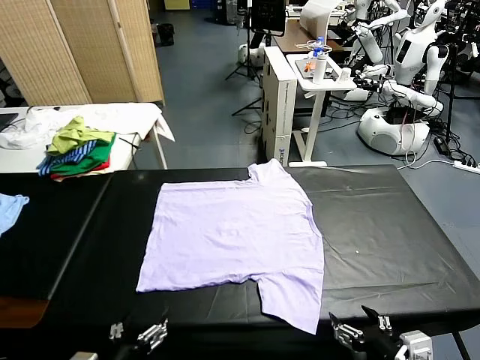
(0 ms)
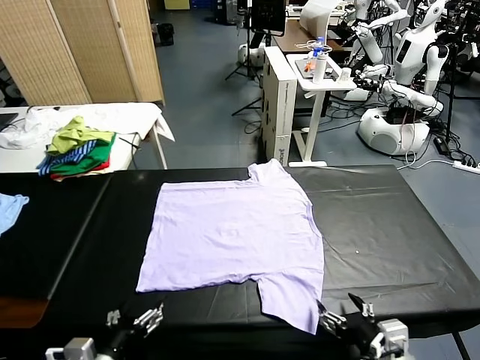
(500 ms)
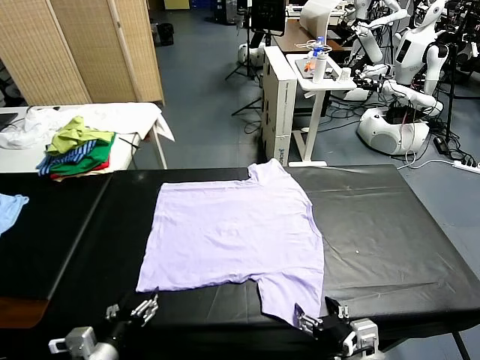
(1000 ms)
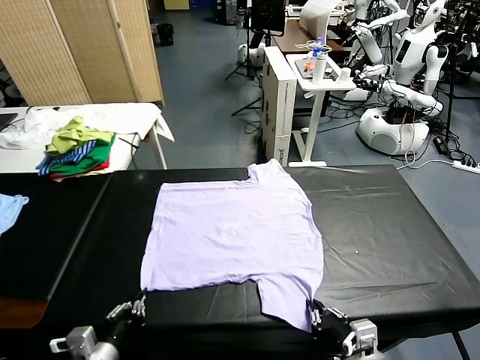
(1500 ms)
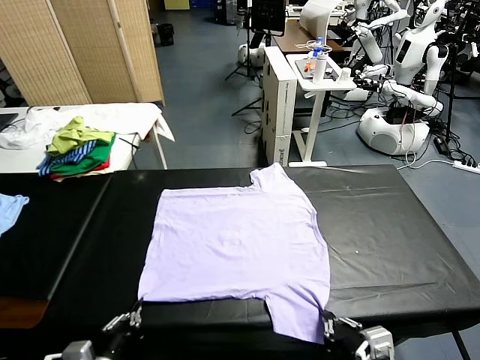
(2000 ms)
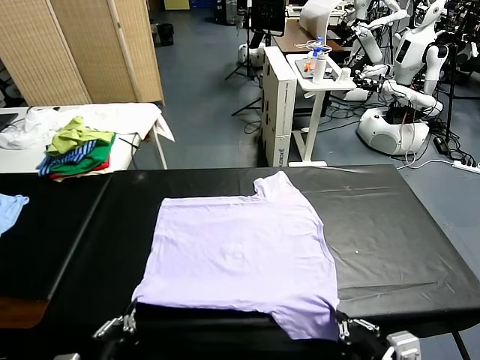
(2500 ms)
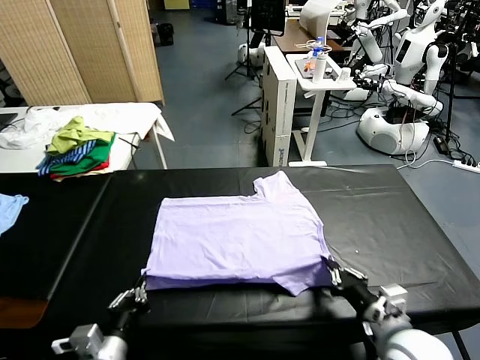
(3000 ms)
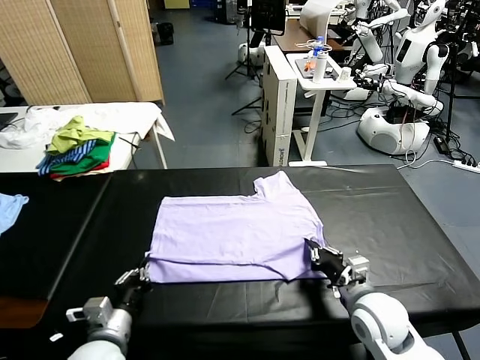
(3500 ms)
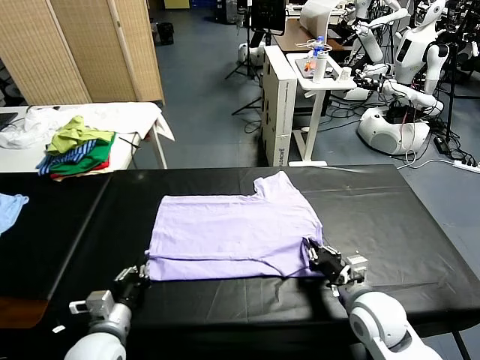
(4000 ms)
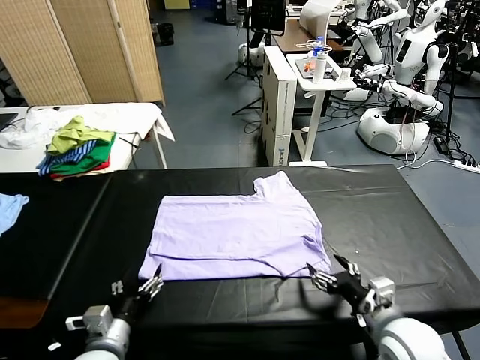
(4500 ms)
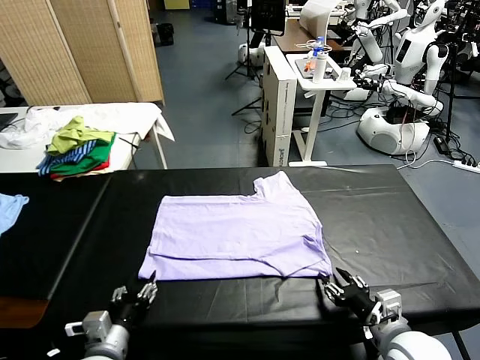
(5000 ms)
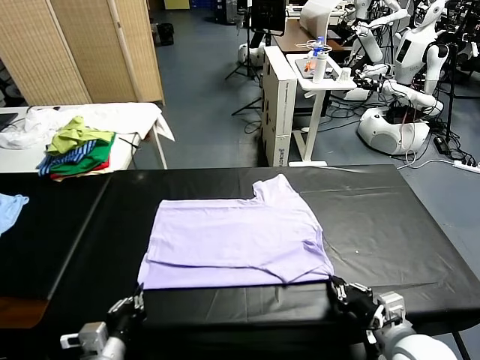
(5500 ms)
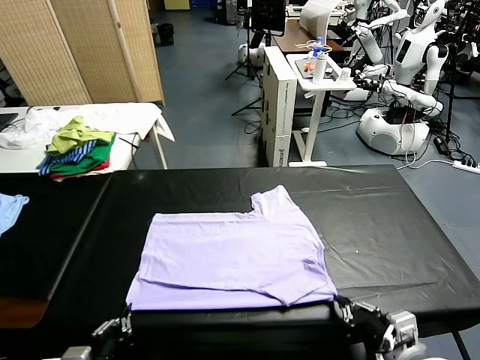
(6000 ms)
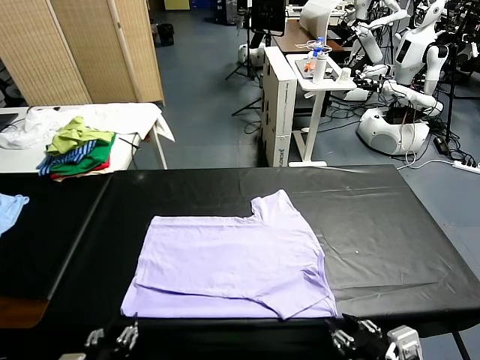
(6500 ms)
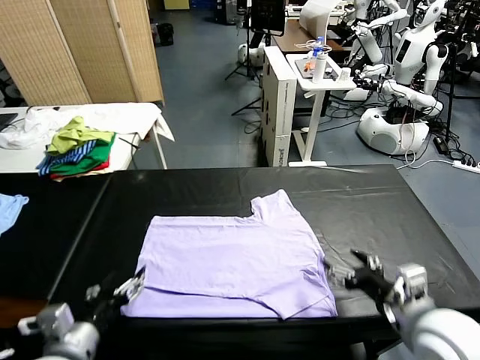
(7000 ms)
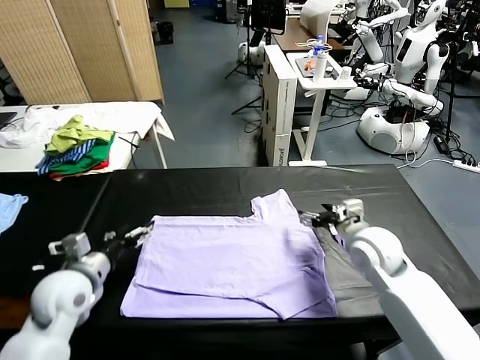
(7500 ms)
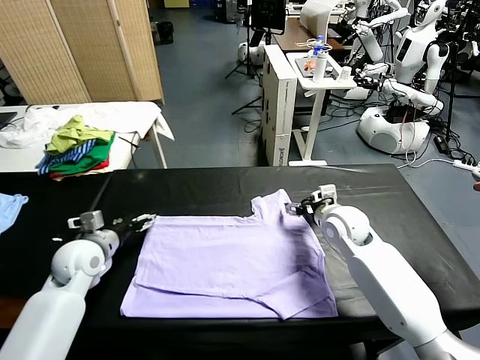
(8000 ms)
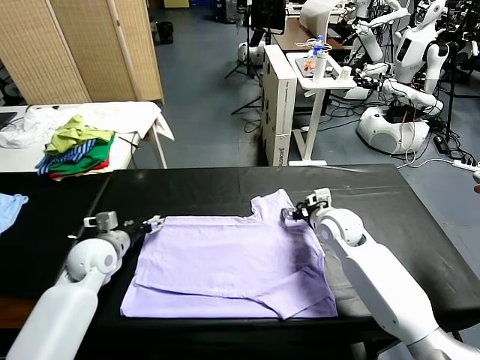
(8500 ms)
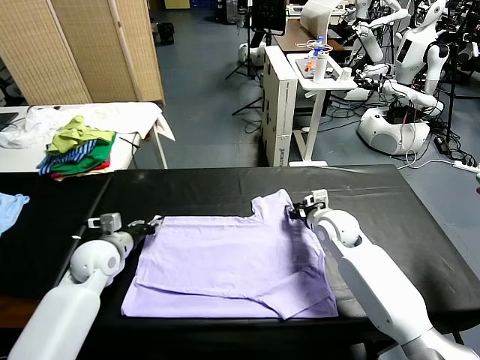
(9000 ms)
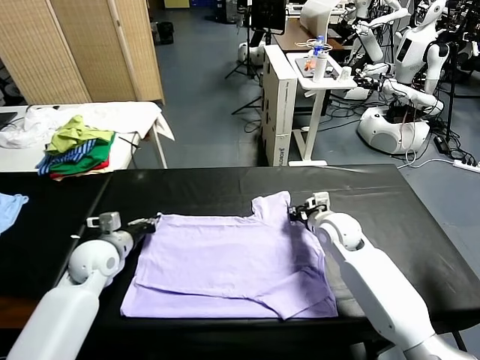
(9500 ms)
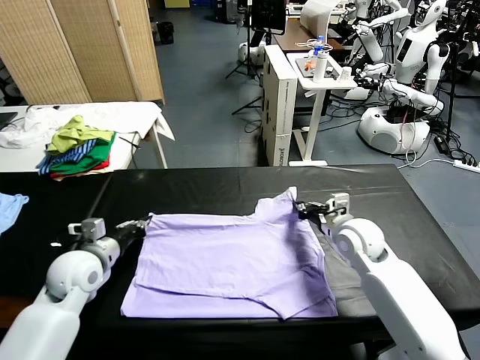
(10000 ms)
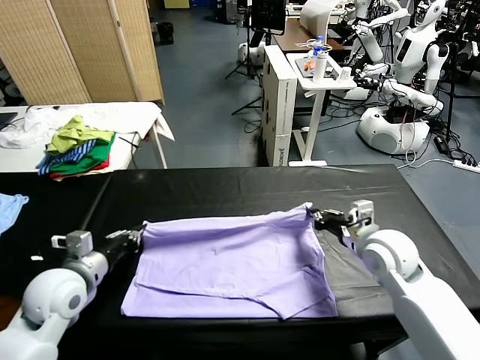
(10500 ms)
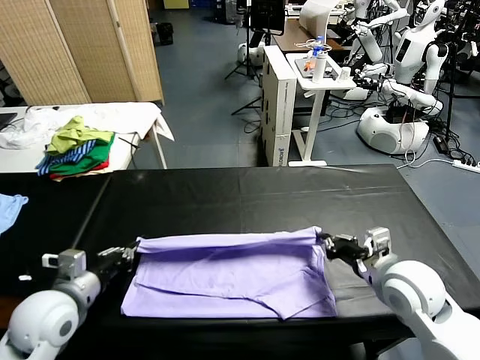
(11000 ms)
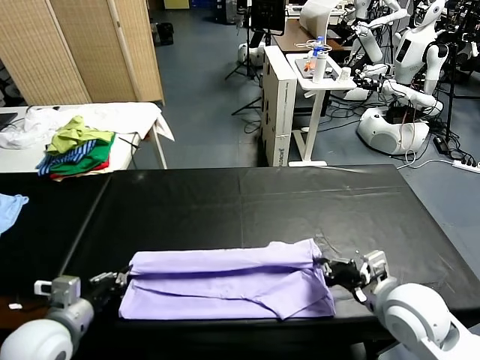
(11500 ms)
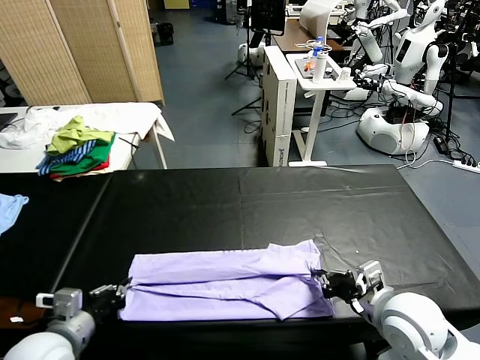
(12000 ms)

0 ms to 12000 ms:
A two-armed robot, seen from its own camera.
Task of the whole recording: fold and organize the clothes.
Step, 0 ms to 1500 ms: use both grippers simultaneously to clamp the lower edge of the clothing fabric.
Step, 2000 ms to 4000 ms: use both grippers to drag the lower edge of the fabric forward and fold it over the upper edge.
Step, 4500 ms to 6500 ms: Drag the clothes downward with both gripper.
Step, 7000 ms to 9500 ms: use both grippers simultaneously to clamp the upper edge of the clothing fabric.
2000 ms to 4000 ms: Both grippers move forward, roughly 15 cm. The left gripper opens, while the right gripper opens.
4000 ms to 6000 ms: The two grippers go some 10 cm backward. The left gripper closes its fingers, while the right gripper closes.
6000 ms to 8000 ms: Both grippers travel together forward, some 30 cm. The left gripper opens up. The right gripper opens.
8000 ms to 10000 ms: The right gripper is displaced backward by roughly 5 cm, and closes. The left gripper ends up roughly 5 cm from where it was, and closes its fingers.
10000 ms to 12000 ms: The grippers both shift backward by some 15 cm.

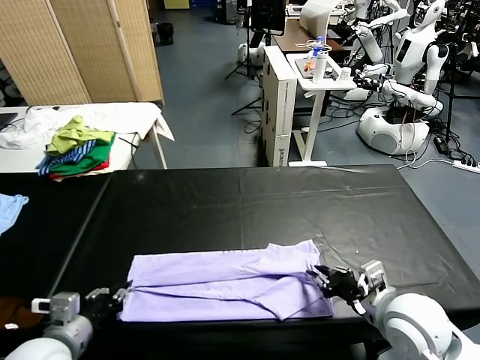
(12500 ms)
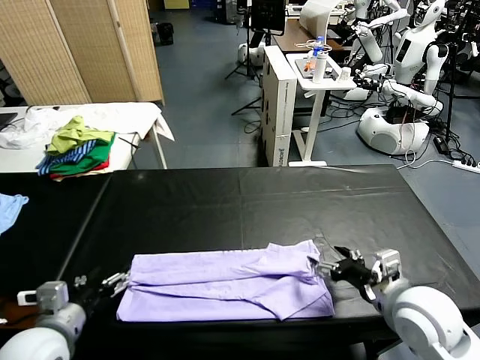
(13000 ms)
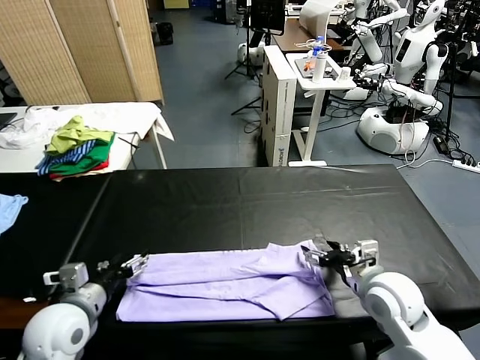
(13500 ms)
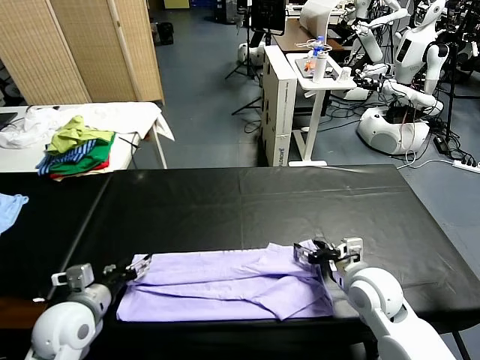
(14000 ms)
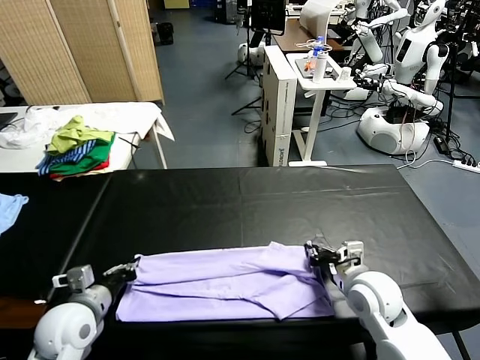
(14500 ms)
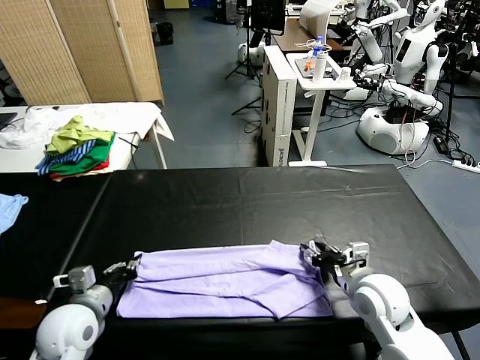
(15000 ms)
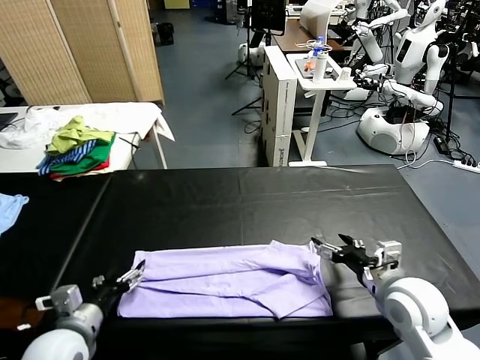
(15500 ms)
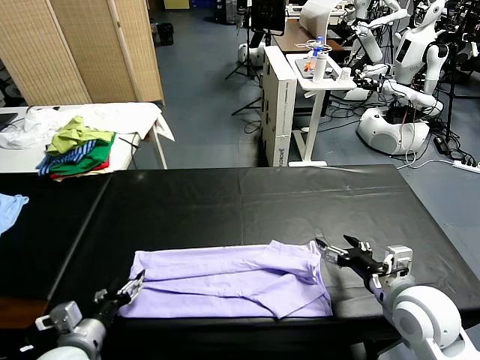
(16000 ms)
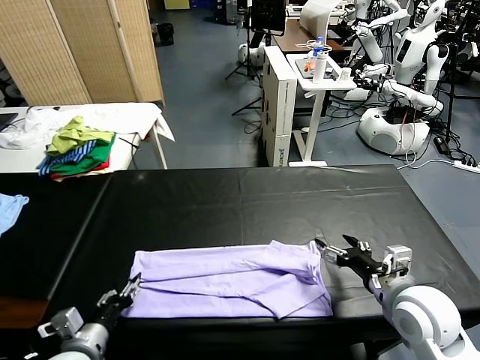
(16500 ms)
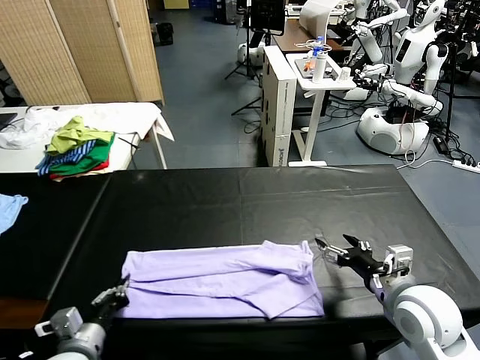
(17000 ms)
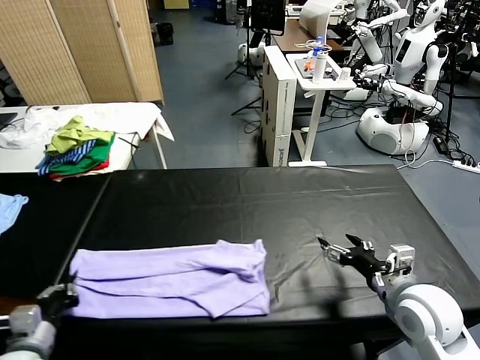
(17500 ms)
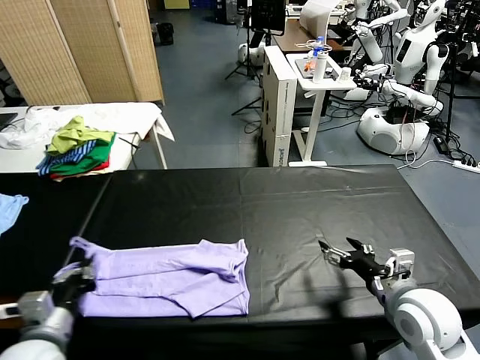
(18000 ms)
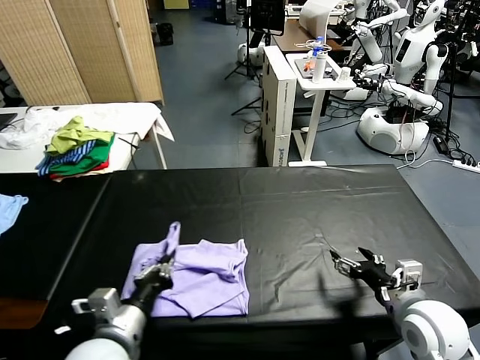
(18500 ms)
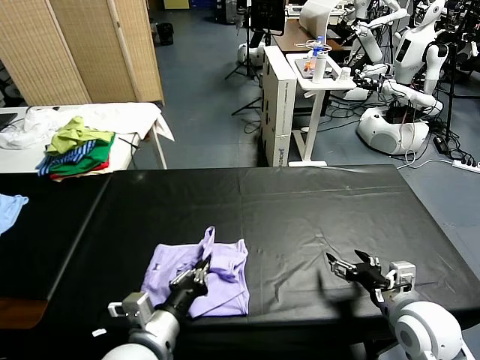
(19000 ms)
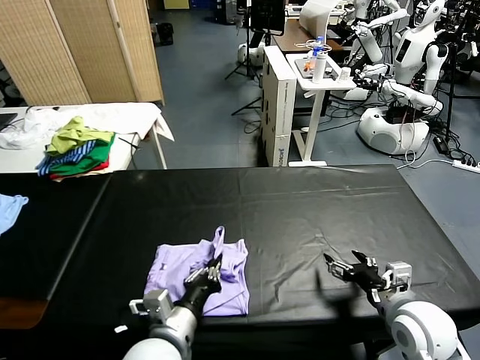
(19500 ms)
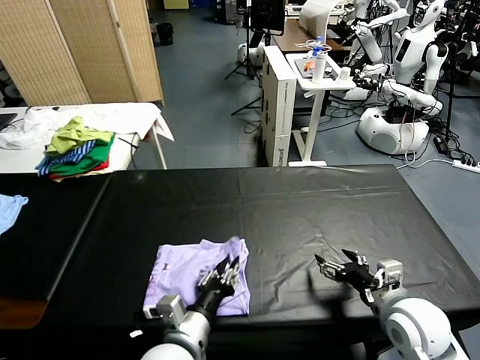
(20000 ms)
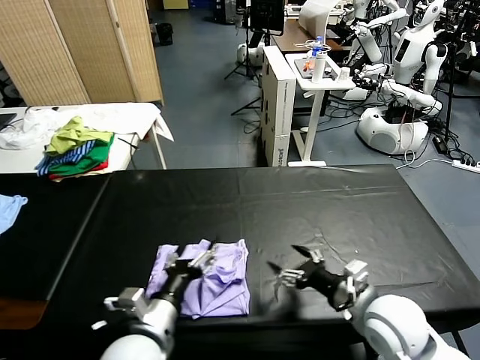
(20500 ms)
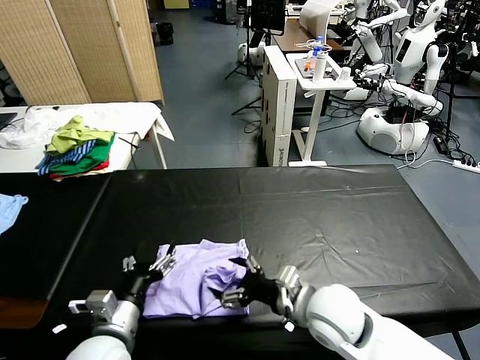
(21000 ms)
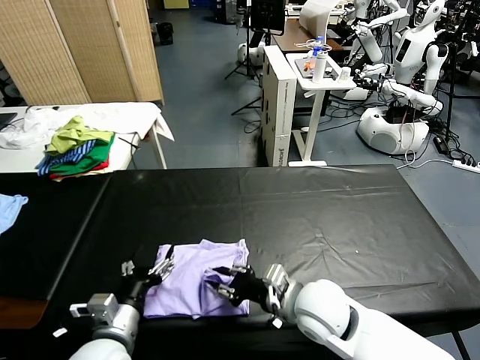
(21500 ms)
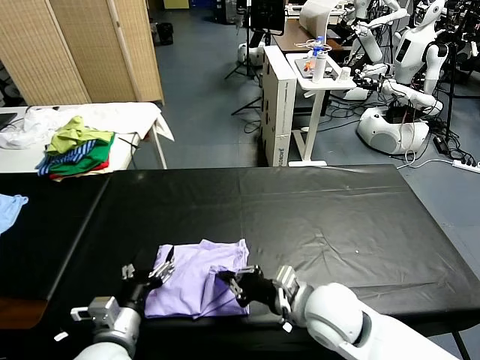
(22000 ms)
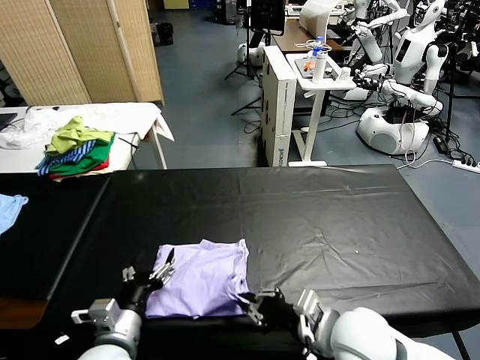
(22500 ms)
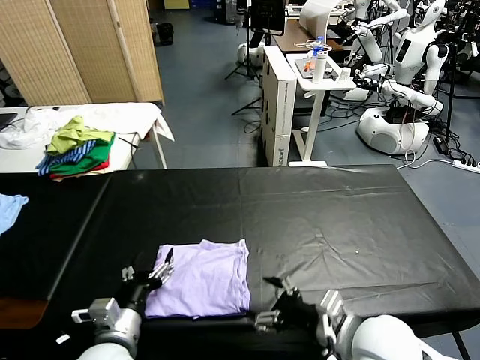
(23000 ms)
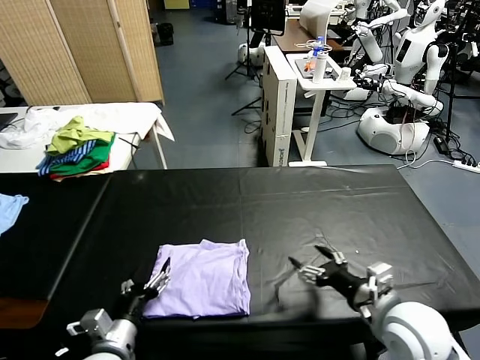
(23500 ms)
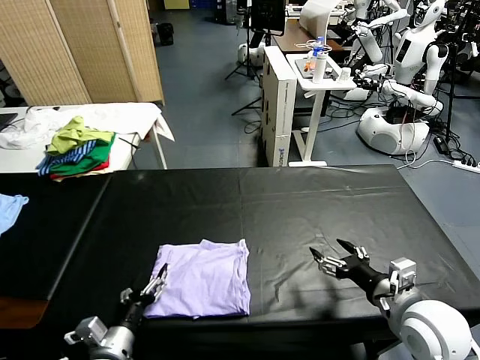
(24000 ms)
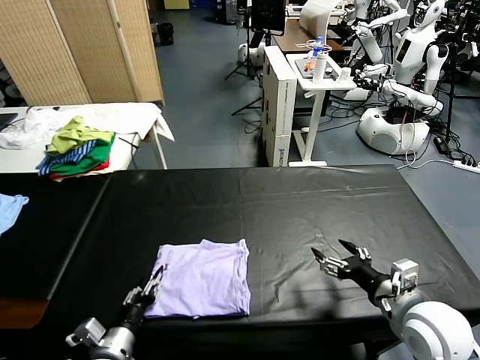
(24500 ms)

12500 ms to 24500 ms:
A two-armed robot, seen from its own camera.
Task of the whole recording: fold and organize the clothes.
Step, 13000 ms to 16500 ms: use the left gripper to clamp the left edge of the fabric.
Step, 17500 ms to 20000 ms: use the left gripper to drag the left edge of the fabric to the left and folds it over the right edge.
12500 ms to 14500 ms: The right gripper goes roughly 10 cm forward and downward, and closes up. Meanwhile the left gripper moves forward, about 10 cm, and closes.
14500 ms to 16500 ms: The right gripper shifts about 10 cm upward and backward, and opens up. Meanwhile the left gripper heads backward, covering about 10 cm, and opens up.
16500 ms to 18500 ms: The left gripper goes roughly 10 cm to the right and upward, and closes its fingers.
18500 ms to 20500 ms: The right gripper heads to the left, covering about 10 cm. The left gripper opens its fingers.
20500 ms to 22500 ms: Both grippers travel together to the left, roughly 5 cm. The right gripper closes.
22500 ms to 24500 ms: The right gripper travels to the right by approximately 15 cm, and opens. Meanwhile the left gripper travels downward by approximately 5 cm, and closes its fingers.

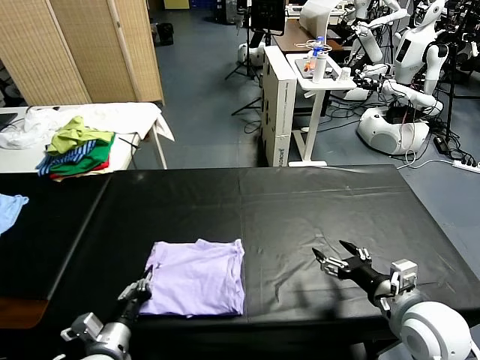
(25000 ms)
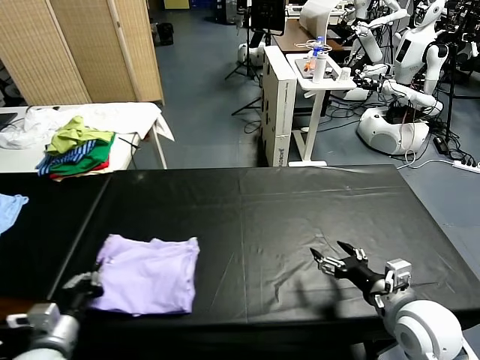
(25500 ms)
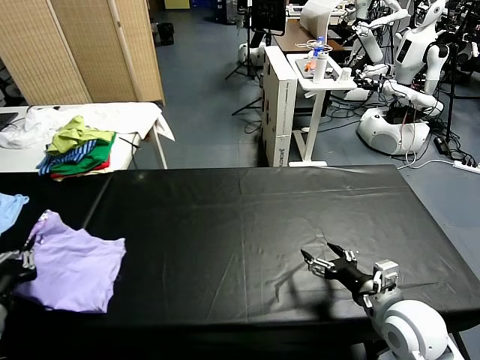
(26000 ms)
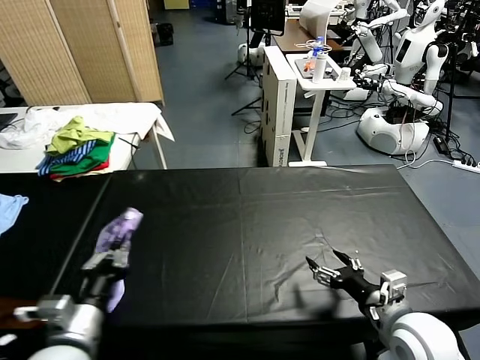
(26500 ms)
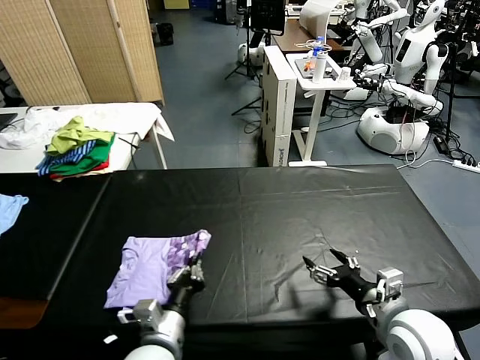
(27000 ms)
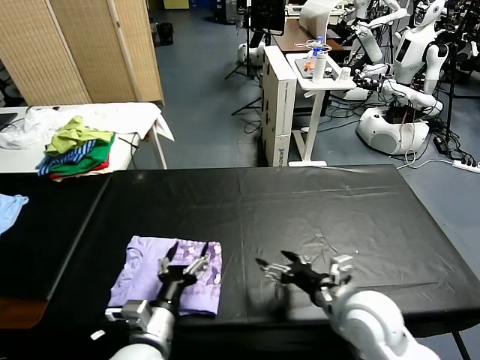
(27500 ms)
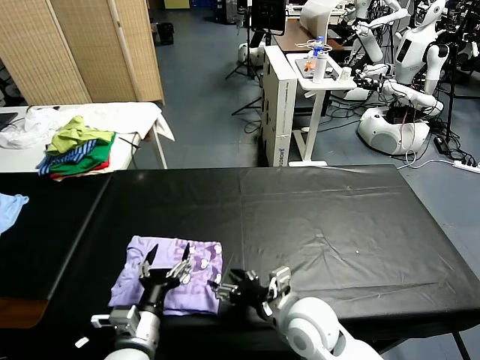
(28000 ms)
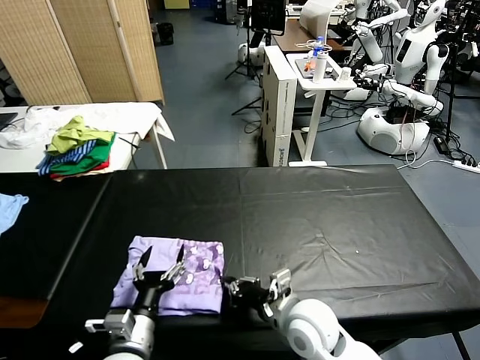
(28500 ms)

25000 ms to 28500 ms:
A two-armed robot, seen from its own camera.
Task of the whole recording: fold and organize the clothes.
Step, 25000 ms to 27500 ms: Flip the folded clothes over with left gripper.
25000 ms to 27000 ms: The left gripper moves to the right and upward, roughly 10 cm.
27000 ms to 28500 ms: The right gripper shifts roughly 15 cm to the left, and closes, while the left gripper opens.
